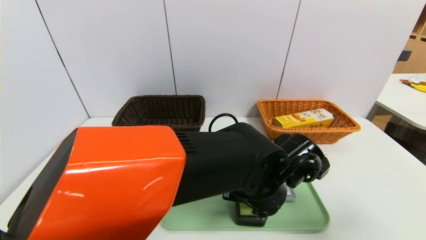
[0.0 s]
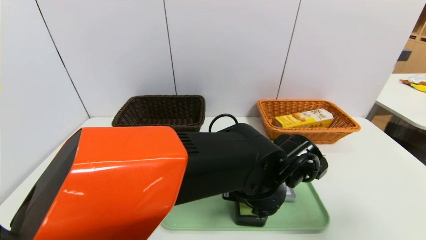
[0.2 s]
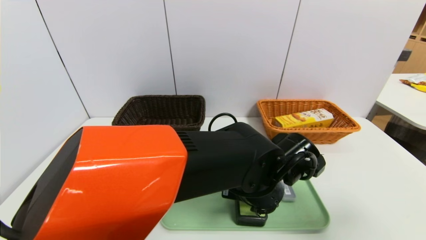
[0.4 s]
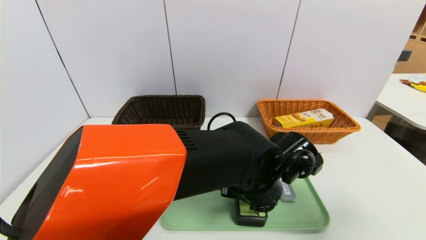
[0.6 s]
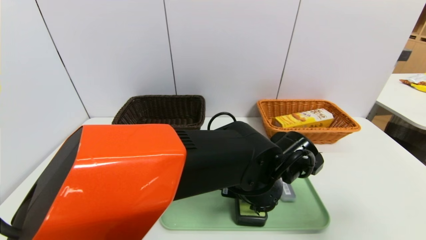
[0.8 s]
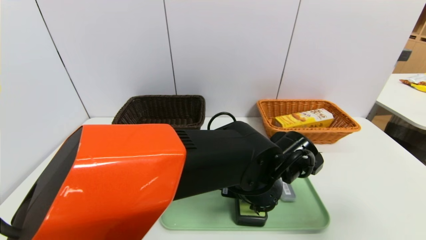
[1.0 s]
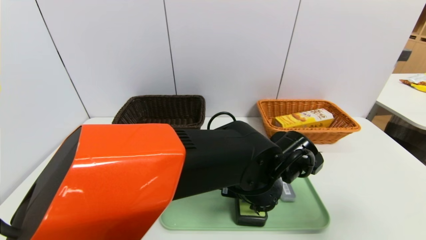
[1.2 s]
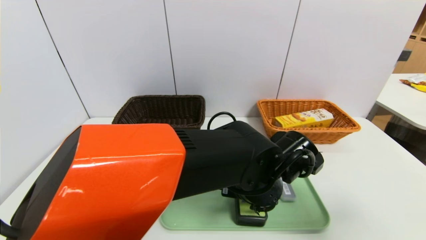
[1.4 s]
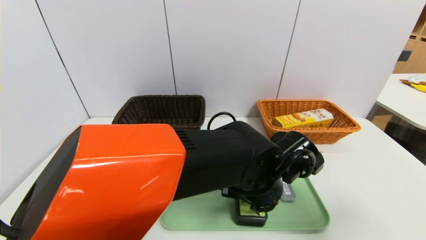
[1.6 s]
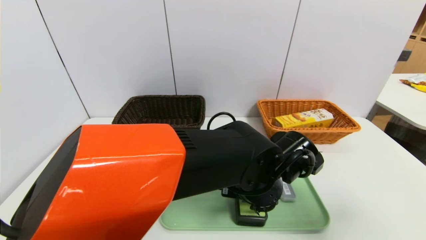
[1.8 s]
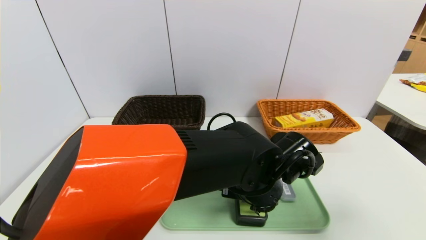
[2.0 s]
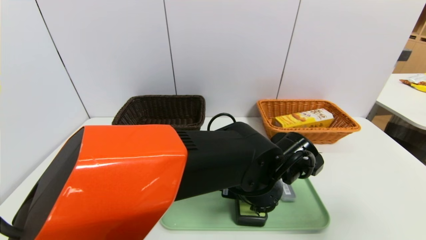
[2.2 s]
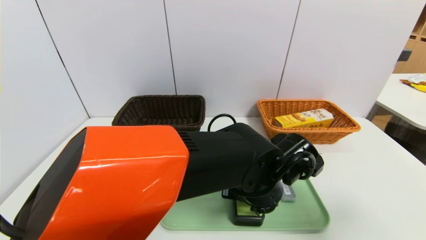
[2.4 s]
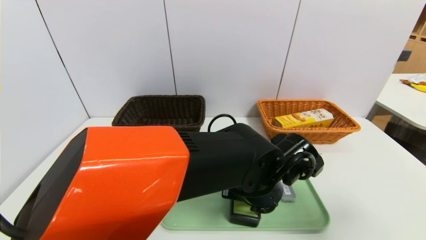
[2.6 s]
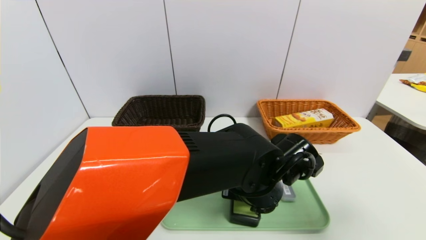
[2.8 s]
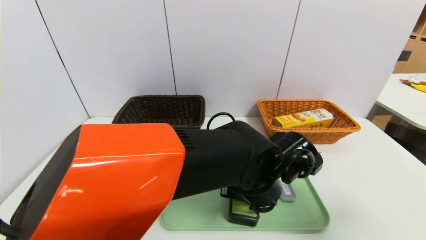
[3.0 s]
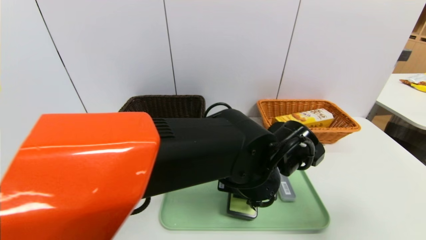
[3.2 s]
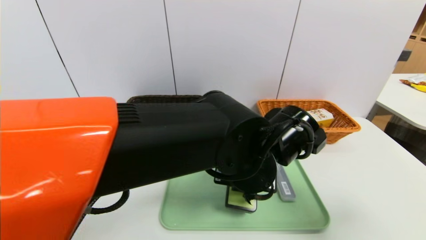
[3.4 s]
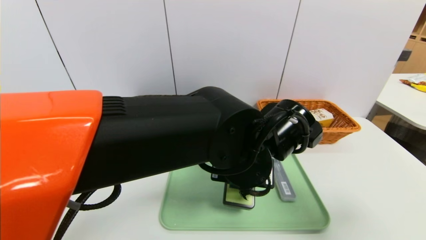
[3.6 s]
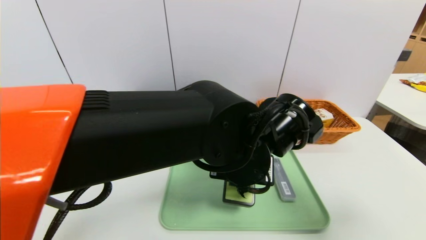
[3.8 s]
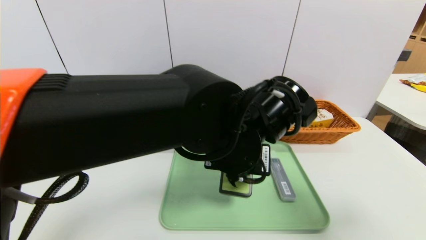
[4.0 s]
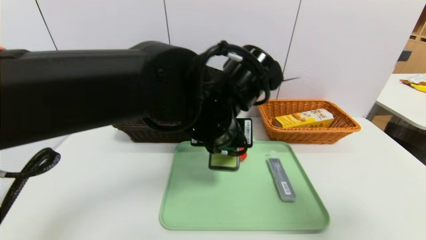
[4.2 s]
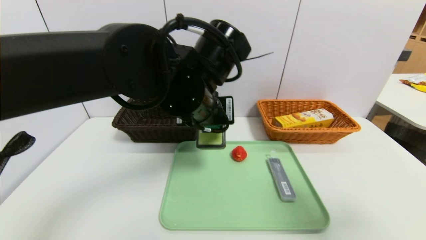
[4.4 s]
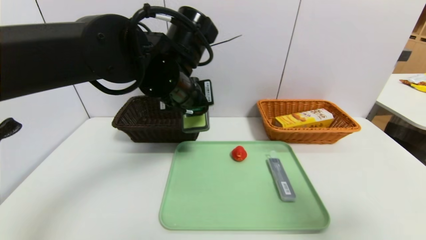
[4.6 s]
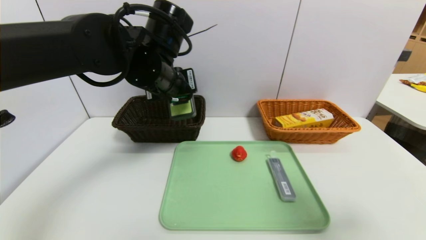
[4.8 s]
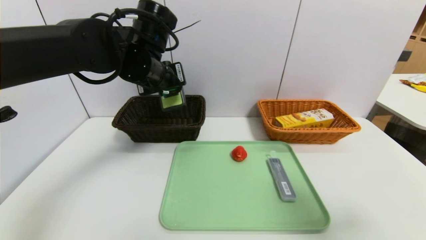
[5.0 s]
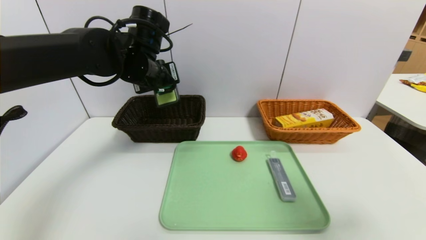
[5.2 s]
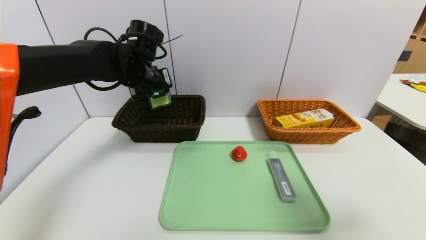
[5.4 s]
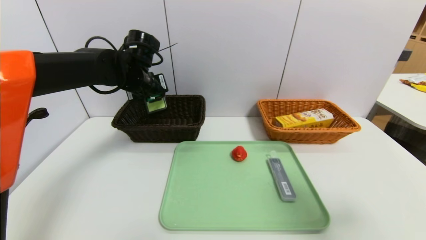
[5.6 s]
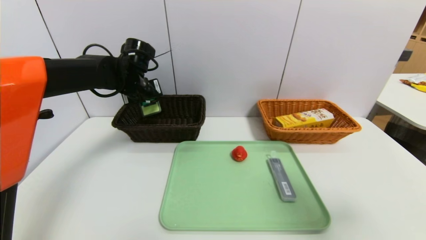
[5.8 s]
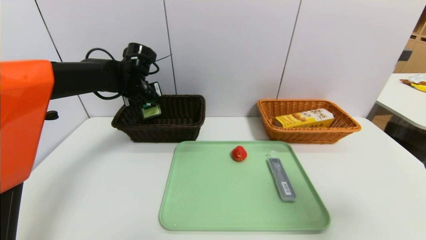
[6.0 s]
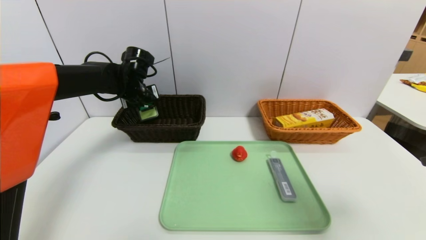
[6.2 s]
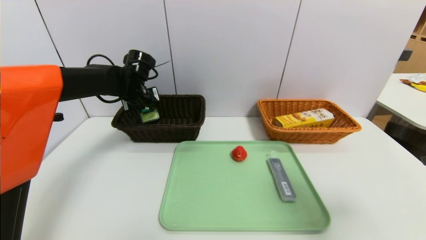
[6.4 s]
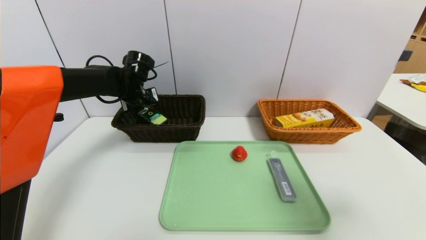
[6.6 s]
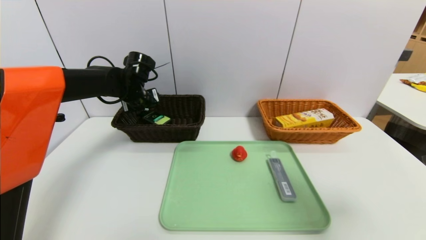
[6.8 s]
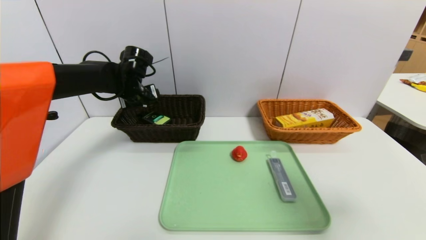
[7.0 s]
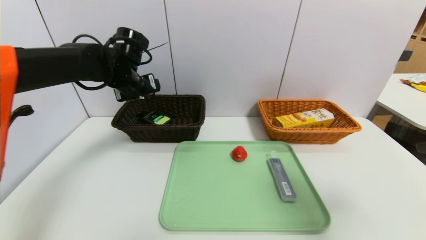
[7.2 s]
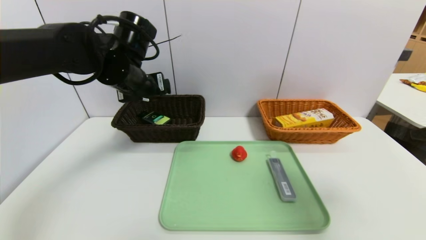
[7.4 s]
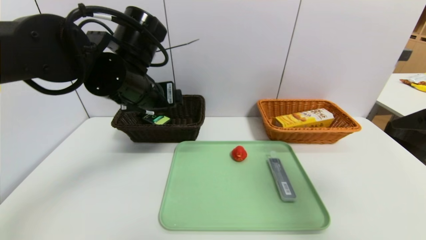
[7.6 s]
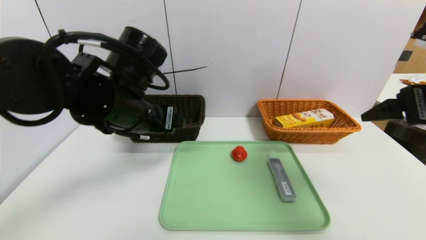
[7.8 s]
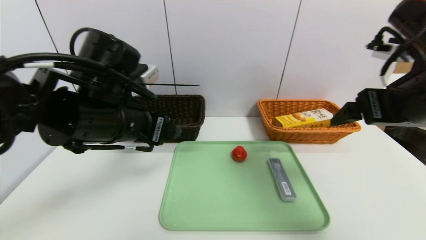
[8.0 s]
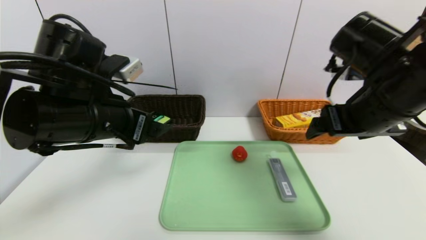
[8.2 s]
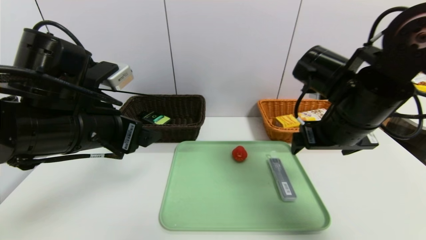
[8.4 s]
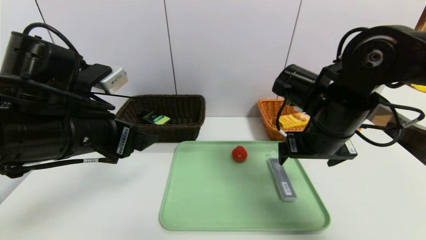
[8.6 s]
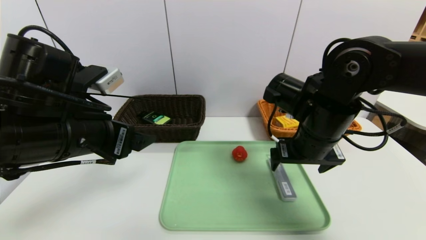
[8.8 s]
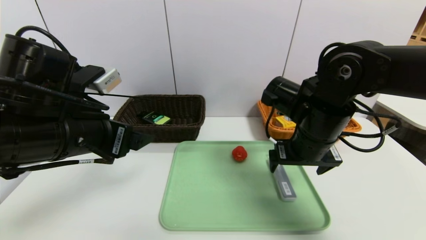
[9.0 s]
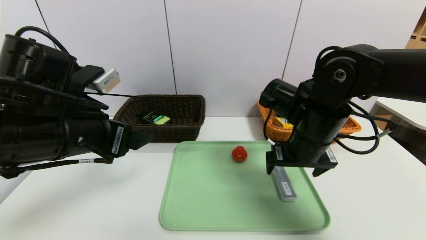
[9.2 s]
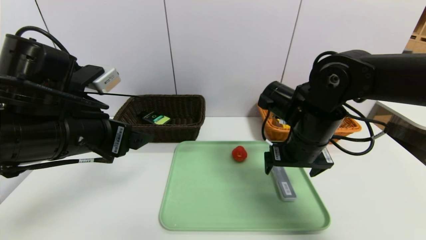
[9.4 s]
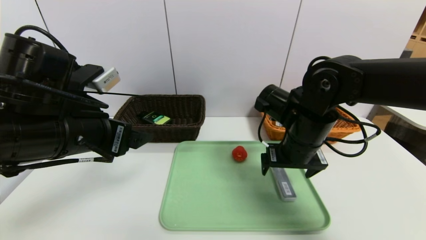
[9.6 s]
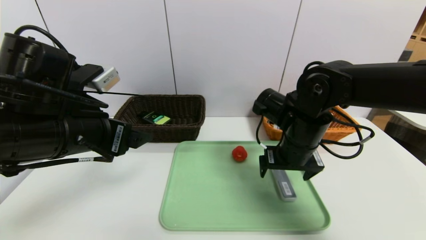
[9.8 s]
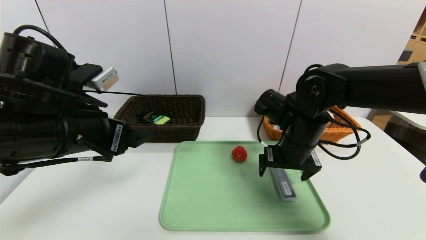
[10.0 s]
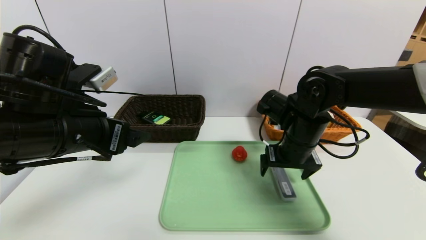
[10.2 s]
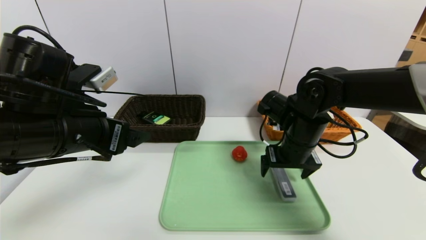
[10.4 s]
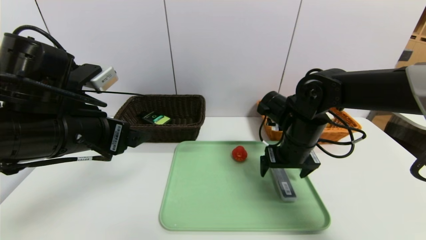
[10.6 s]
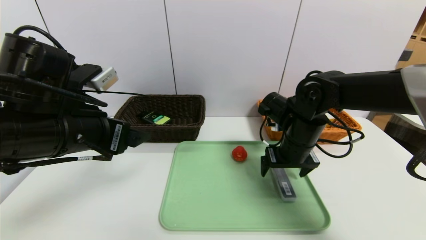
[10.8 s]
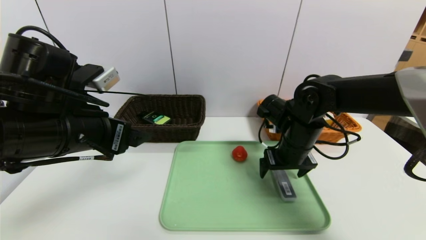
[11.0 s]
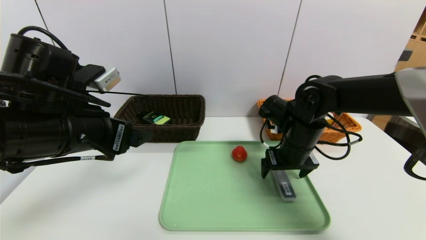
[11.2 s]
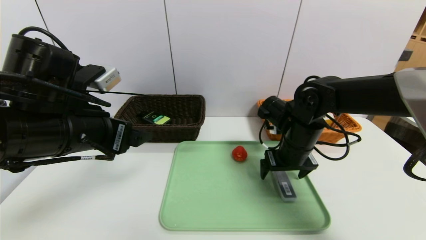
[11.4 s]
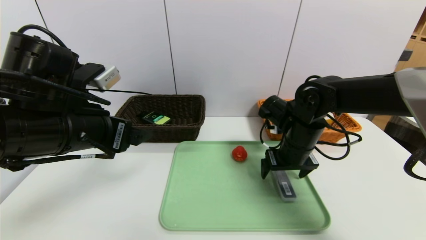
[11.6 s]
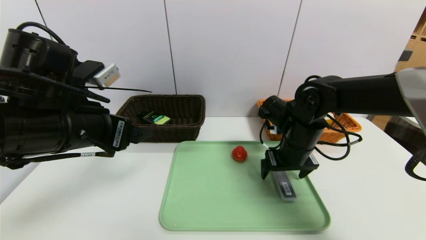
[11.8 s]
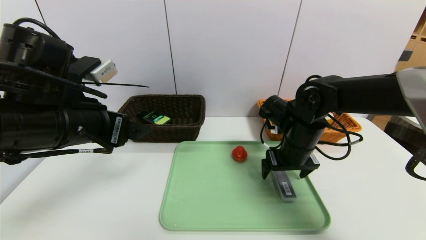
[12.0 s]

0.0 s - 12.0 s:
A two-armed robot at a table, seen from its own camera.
Task of the whole recording: place the food in the right basket with the right gripper, and place the non food items in the left basket with the left gripper.
Step, 0.0 s - 7.0 s: Grasp the hard cleanser and put it in the left basket.
0.0 s - 1.6 s: Both grippers stay put.
1.6 s - 3.0 s: The left gripper closes its fingers.
3.0 s - 4.4 s: The left gripper travels upward and to the left by roughly 15 cm.
4.4 s - 6.0 s: The left gripper moves forward and to the left, about 25 cm.
6.0 s - 7.6 s: The left gripper heads backward and to the right, covering some 15 cm, and opens its fingers. The right gripper ends up some 5 cm from where it was.
7.6 s - 9.0 s: The left gripper moves backward and to the left, about 10 cm. The right gripper shifts some 20 cm to the left, forward and downward.
9.0 s - 10.4 s: The right gripper changes place by roughly 5 cm.
10.4 s - 12.0 s: The grippers move only a little.

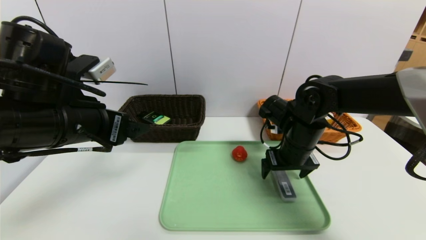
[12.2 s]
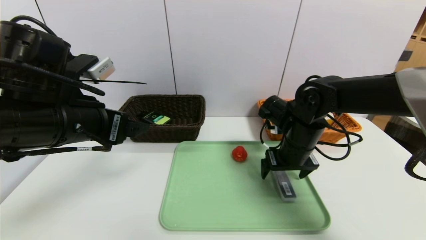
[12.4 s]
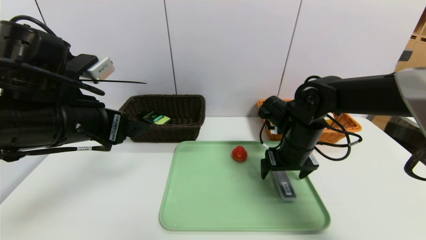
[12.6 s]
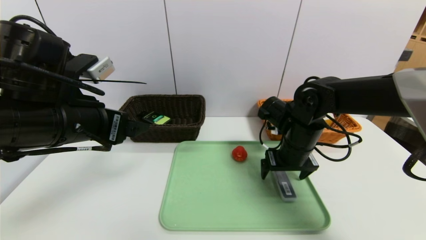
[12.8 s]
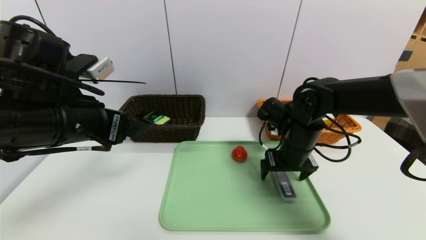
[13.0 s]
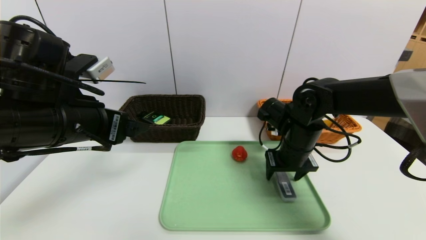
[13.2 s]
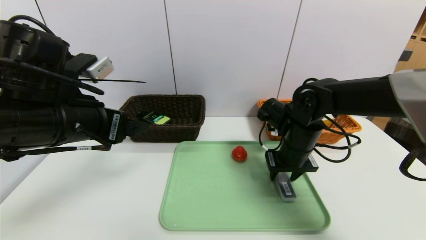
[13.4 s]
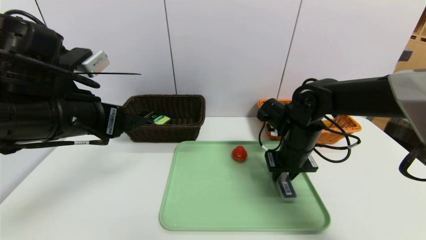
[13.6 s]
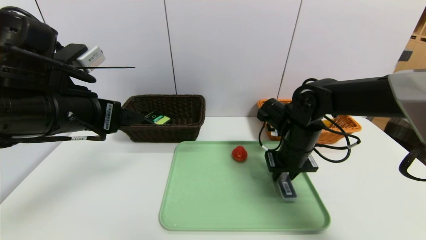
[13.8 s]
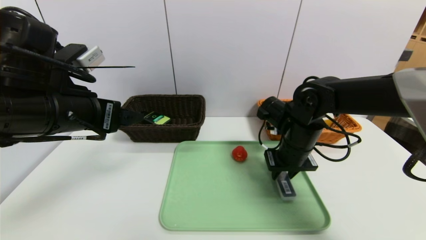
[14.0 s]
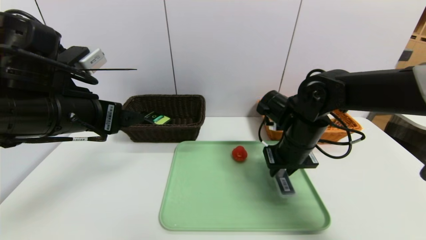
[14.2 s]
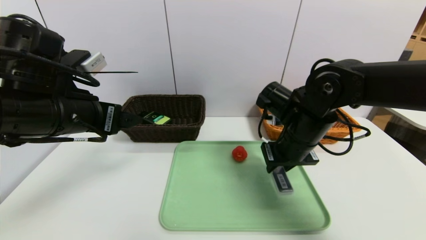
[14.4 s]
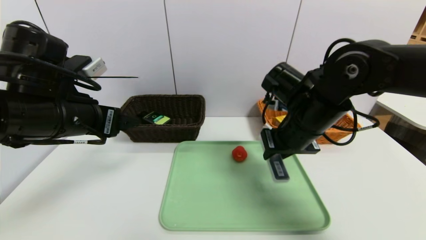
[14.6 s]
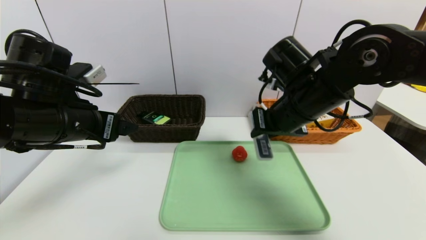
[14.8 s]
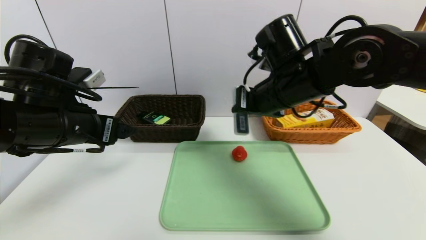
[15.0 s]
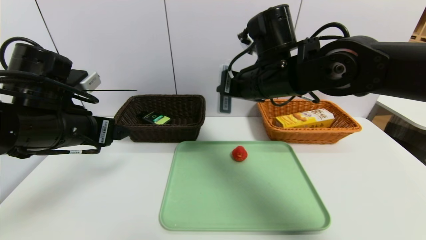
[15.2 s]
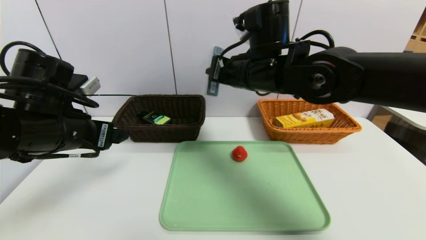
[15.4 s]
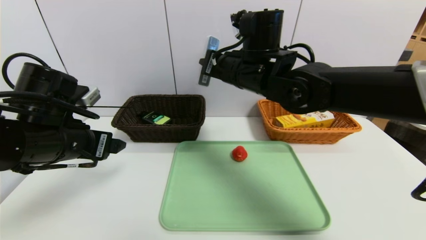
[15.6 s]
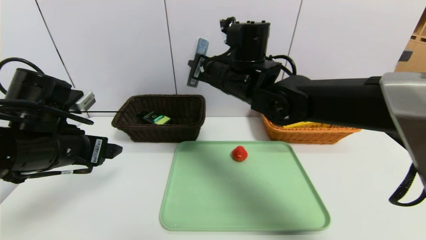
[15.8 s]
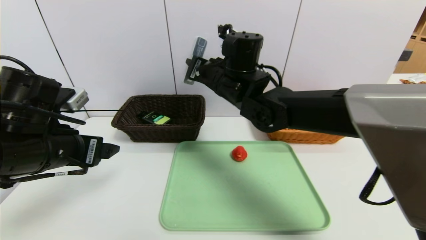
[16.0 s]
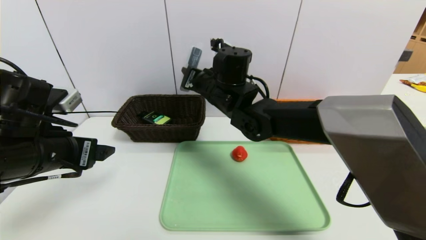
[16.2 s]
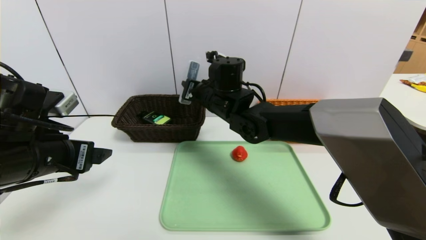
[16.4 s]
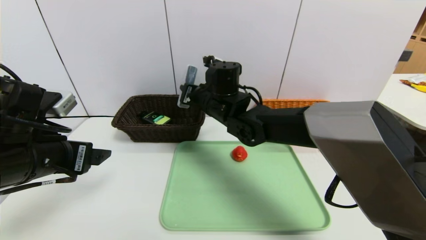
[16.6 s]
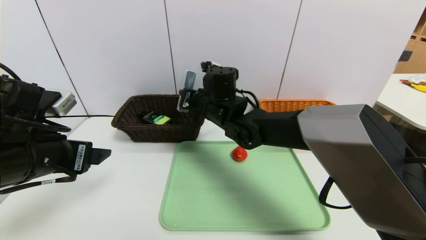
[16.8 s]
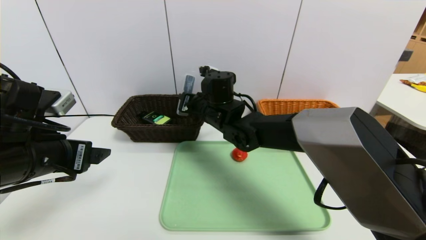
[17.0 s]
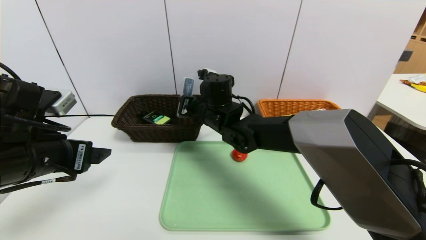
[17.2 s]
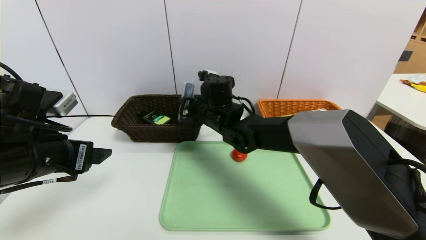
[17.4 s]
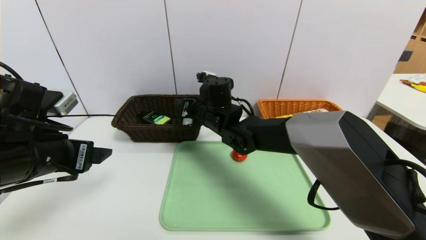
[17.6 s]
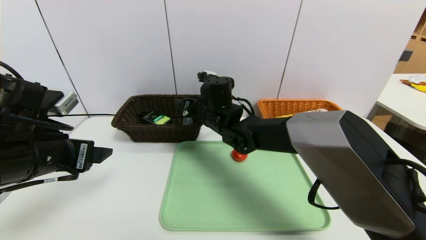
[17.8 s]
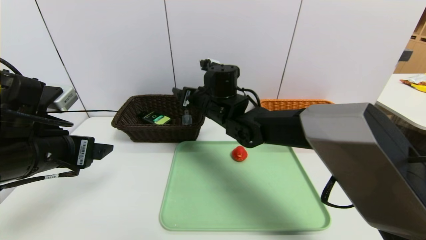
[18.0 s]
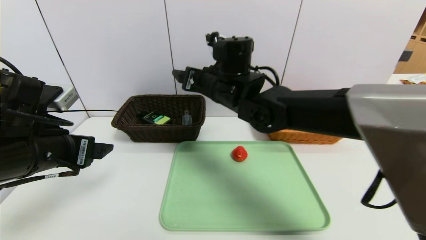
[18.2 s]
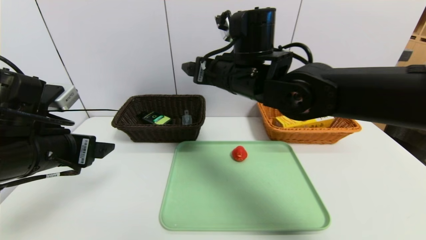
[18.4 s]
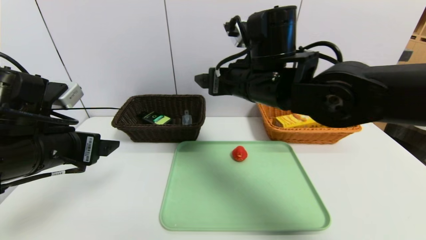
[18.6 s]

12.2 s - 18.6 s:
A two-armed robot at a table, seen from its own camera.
Task of the whole recording: place the food in the right basket with the right gripper, and place the non food items in the left basket with the left gripper.
Step, 12.2 s - 18.4 s: Grasp the compass and put it in the left basket.
12.2 s - 13.8 s: The right gripper closes up.
13.8 s - 15.4 s: The right gripper travels upward and to the left by about 15 cm.
15.4 s - 17.0 s: The right gripper goes roughly 15 cm downward, to the left and forward.
17.0 s - 18.6 s: The right gripper goes roughly 15 cm upward, backward and to the right, and opens.
